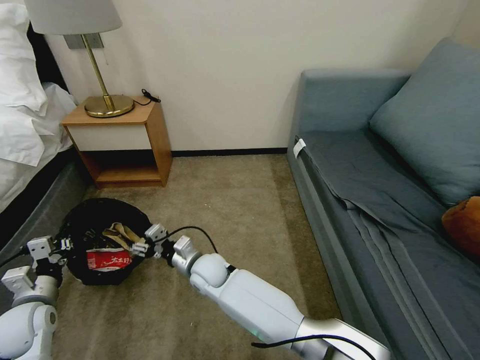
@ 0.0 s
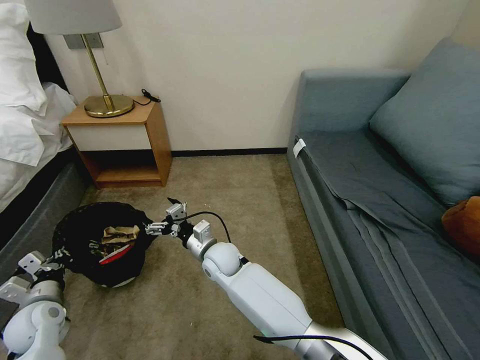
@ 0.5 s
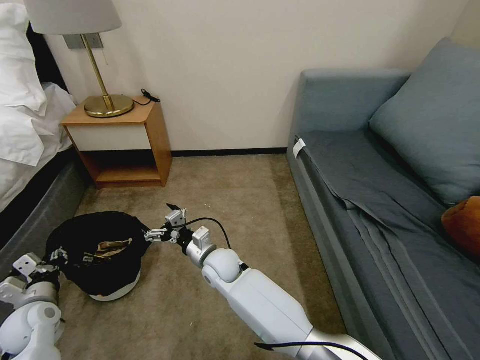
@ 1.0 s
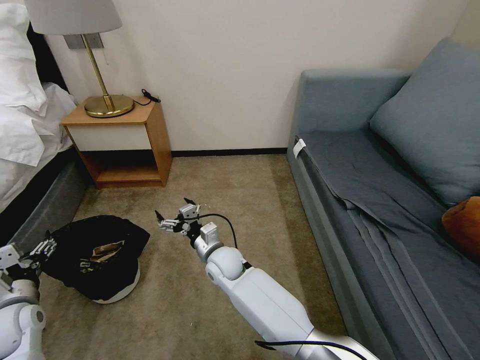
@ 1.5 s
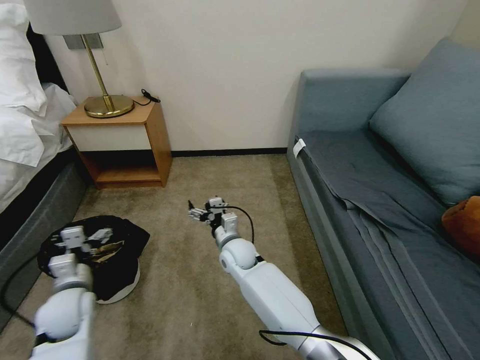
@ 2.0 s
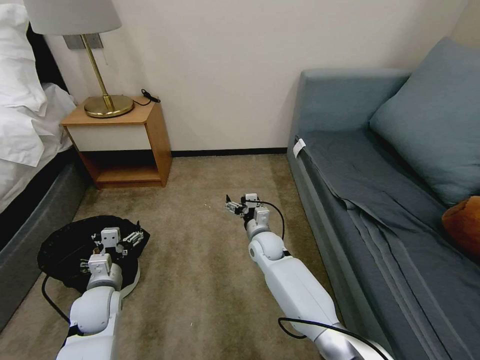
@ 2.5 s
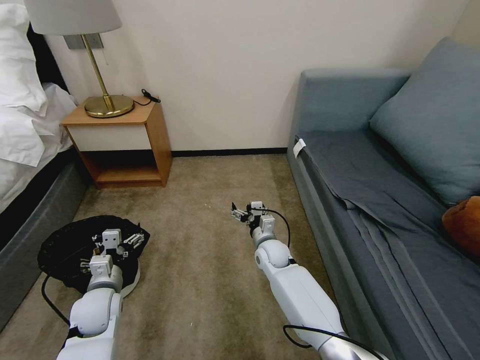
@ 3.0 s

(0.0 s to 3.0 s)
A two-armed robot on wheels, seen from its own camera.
Task of the whole recording: Pick up the trash bin, then pick up the garbage on the floor and place it into the trash bin.
0.0 s - 1.5 s: The right gripper changes place by some 5 cm, and opens up, while the left gripper opens its fingers.
1.5 s - 3.0 s: The two grippers go roughly 15 cm to the right.

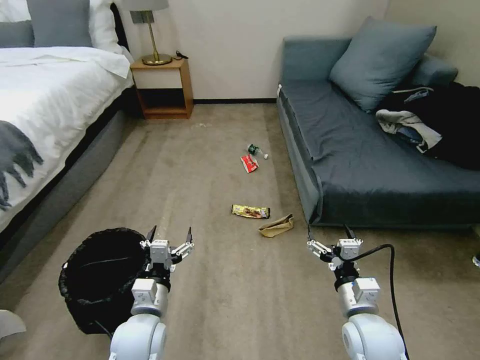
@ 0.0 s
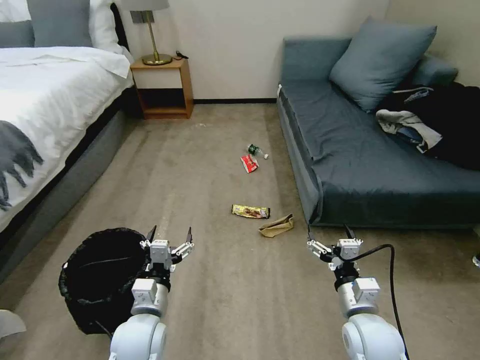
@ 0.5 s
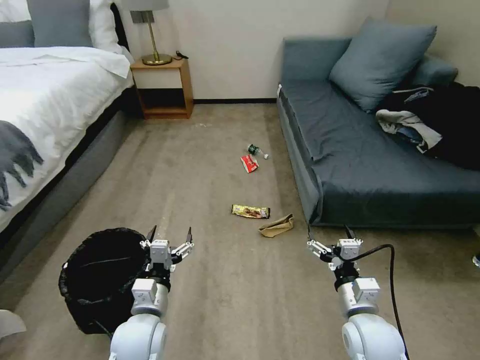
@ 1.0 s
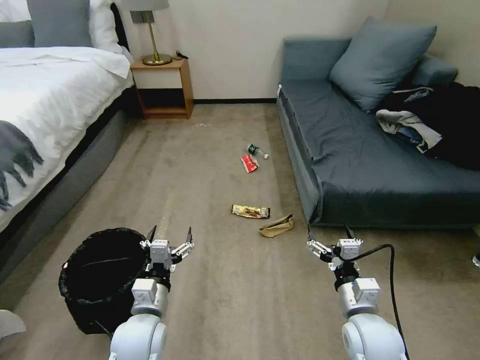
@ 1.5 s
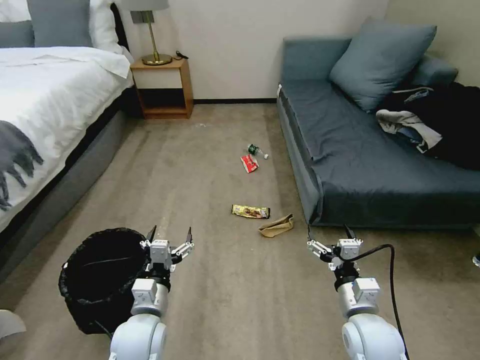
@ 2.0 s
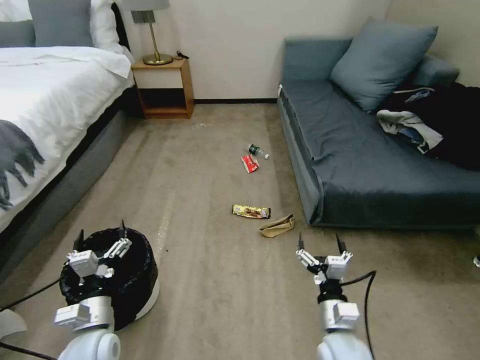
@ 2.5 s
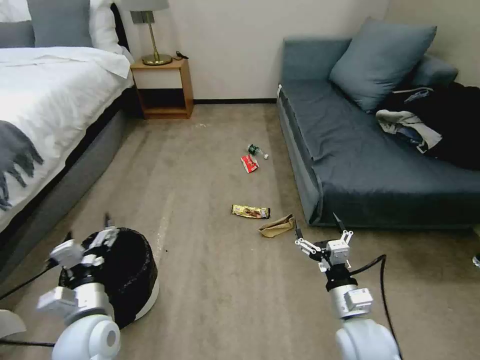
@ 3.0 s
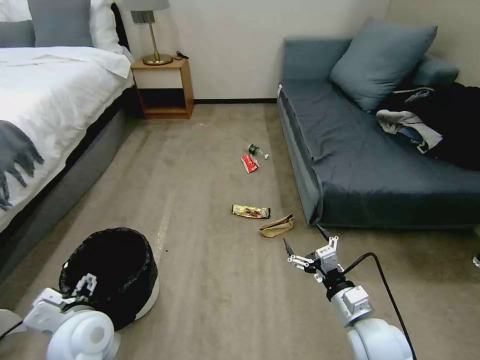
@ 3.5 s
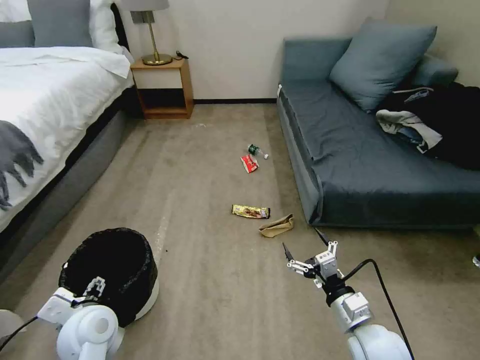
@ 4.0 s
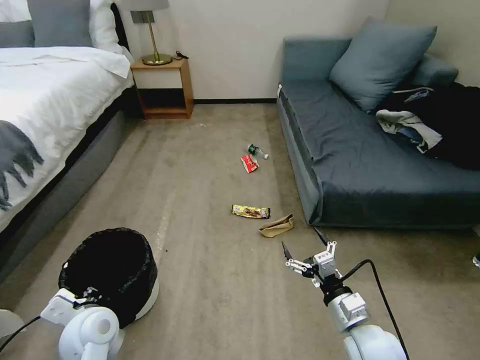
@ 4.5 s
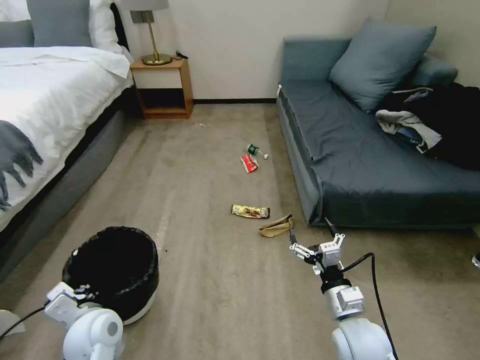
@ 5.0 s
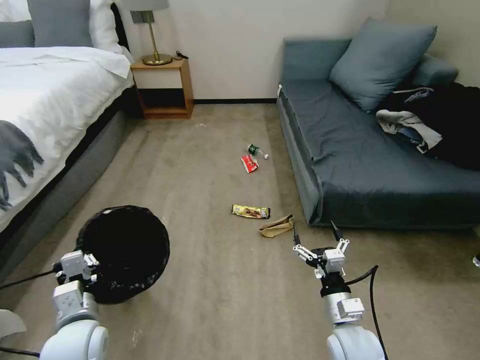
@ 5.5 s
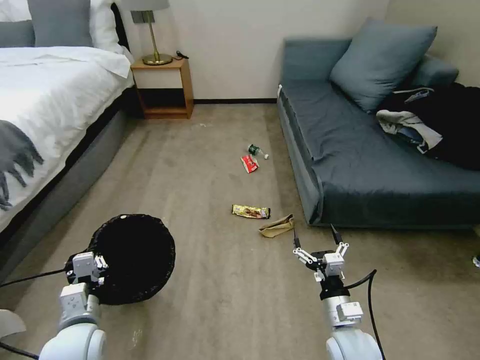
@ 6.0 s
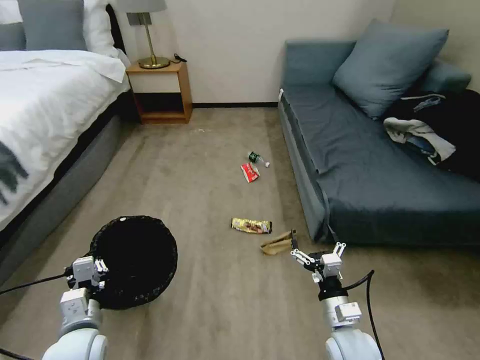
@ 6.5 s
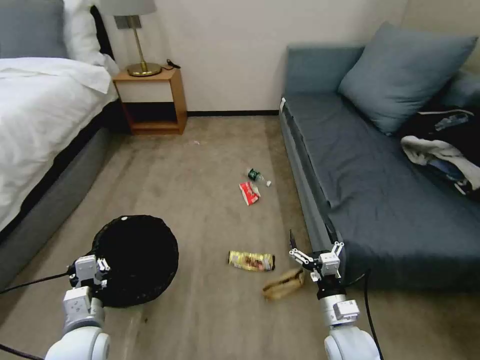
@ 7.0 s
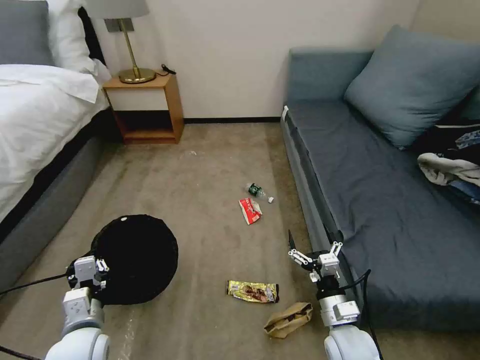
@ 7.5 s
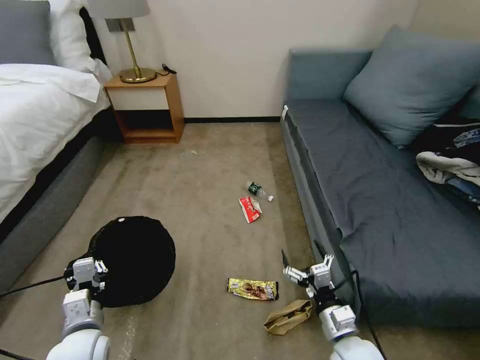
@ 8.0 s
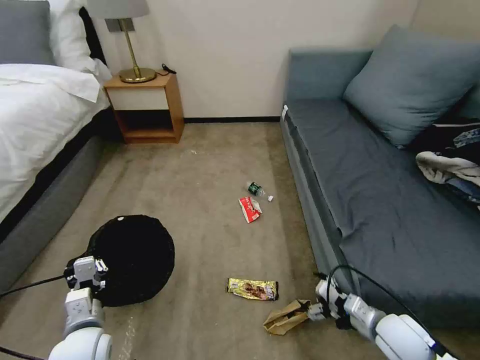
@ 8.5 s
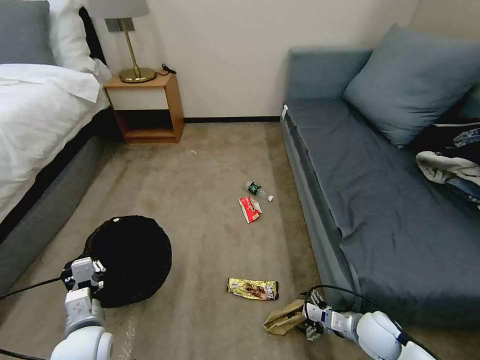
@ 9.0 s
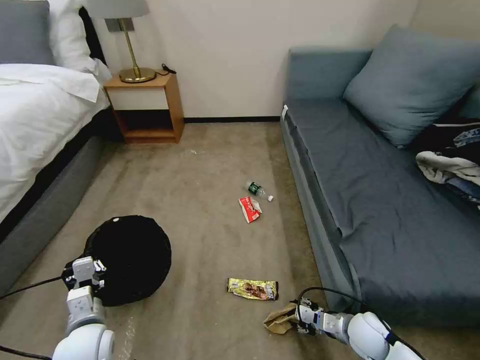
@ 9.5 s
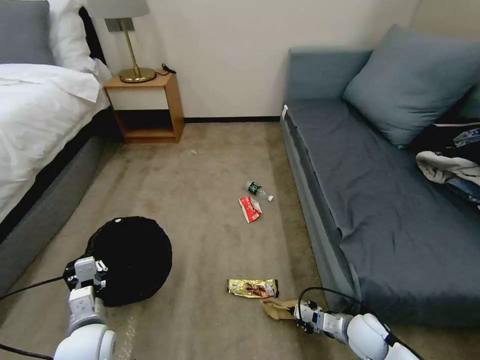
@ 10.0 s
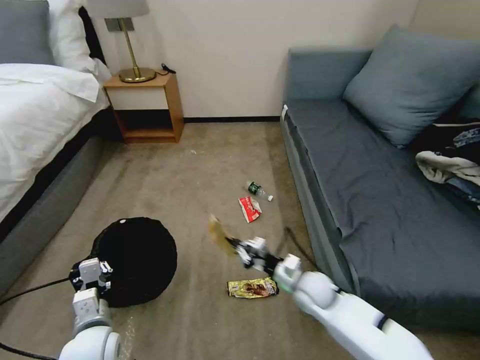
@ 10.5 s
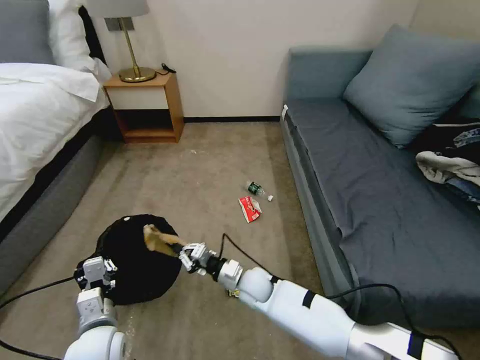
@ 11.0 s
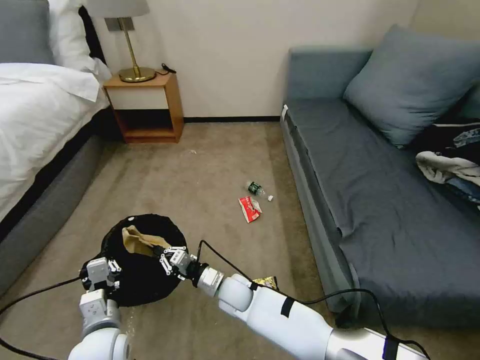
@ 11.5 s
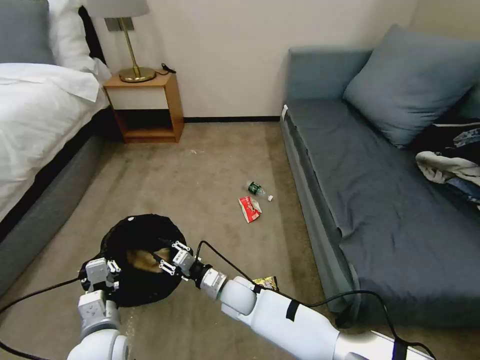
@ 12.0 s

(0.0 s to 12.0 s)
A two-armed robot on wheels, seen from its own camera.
Task of the whole recording: Pick up the trash bin, then pick up the garbage on the floor and place it into the trash bin.
2.0 s - 4.0 s: The left gripper heads to the left, covering approximately 10 cm.
4.0 s - 6.0 s: The left gripper closes its fingers; the right gripper shifts by about 5 cm.
8.0 s - 10.0 s: The right gripper heads downward, to the right and forward, covering about 15 cm, and closes.
10.0 s - 12.0 s: The right gripper shifts about 35 cm to the left, and opens its fingers.

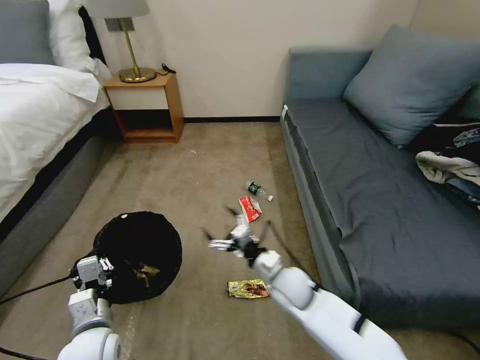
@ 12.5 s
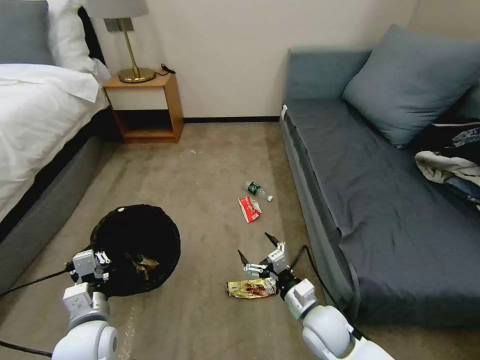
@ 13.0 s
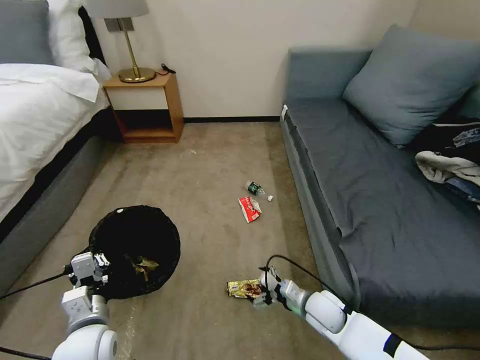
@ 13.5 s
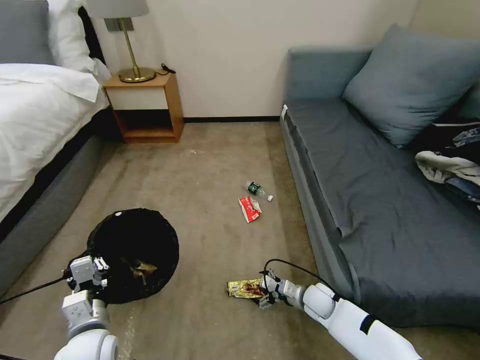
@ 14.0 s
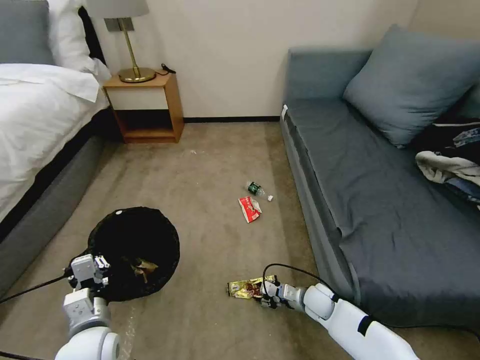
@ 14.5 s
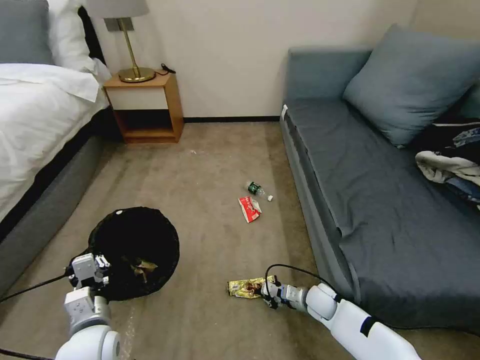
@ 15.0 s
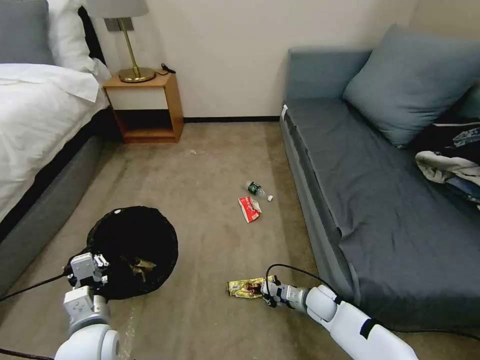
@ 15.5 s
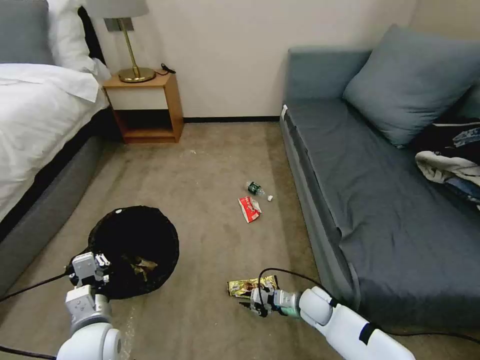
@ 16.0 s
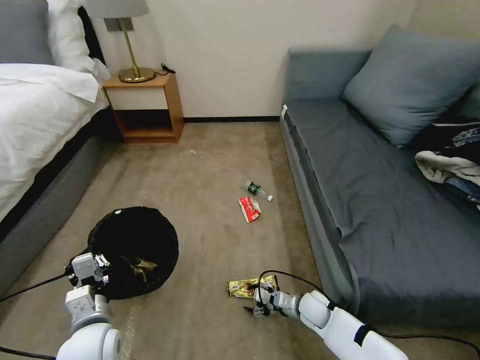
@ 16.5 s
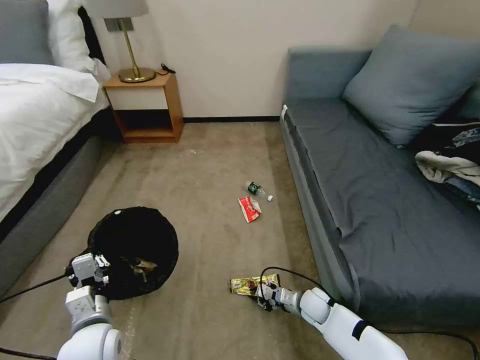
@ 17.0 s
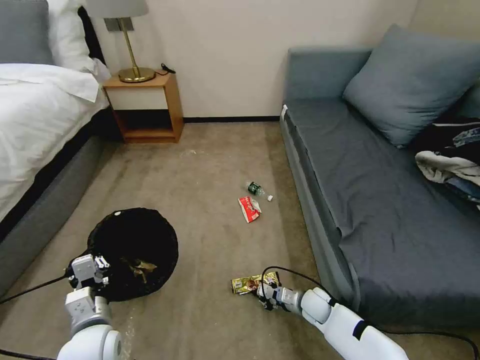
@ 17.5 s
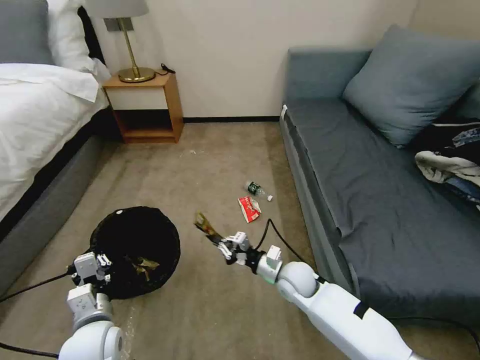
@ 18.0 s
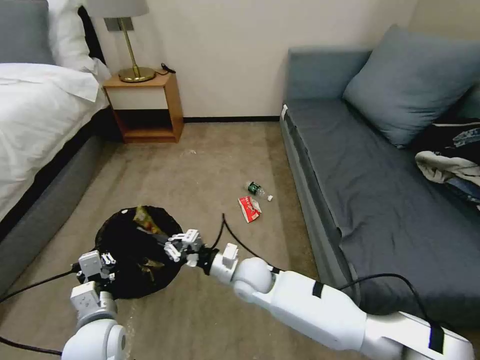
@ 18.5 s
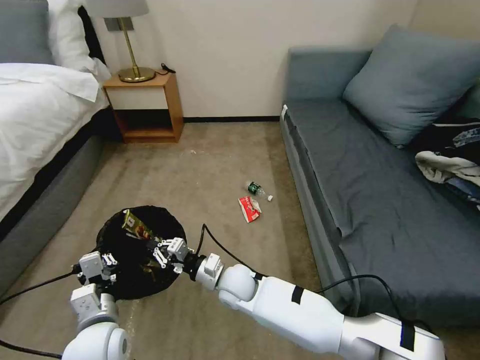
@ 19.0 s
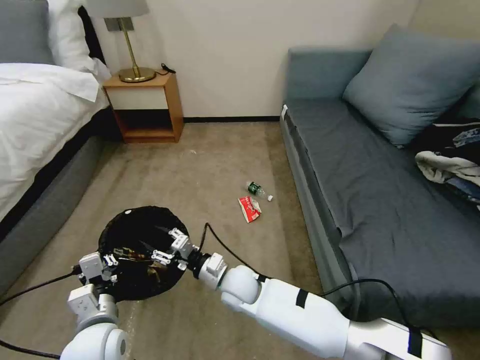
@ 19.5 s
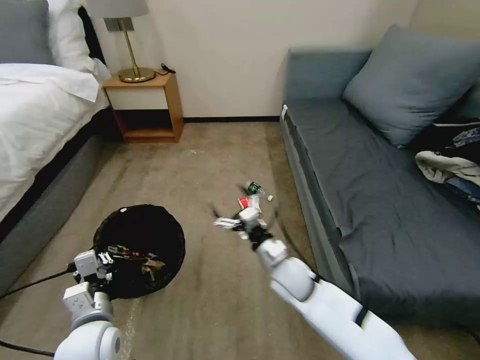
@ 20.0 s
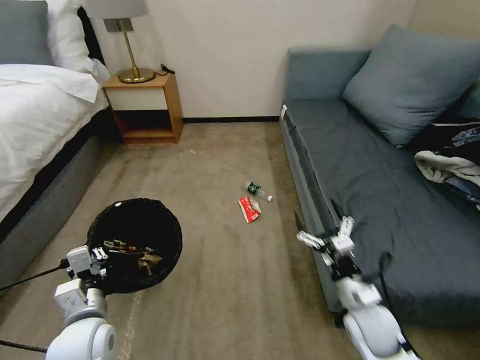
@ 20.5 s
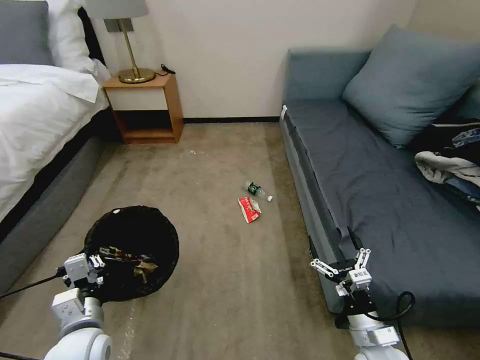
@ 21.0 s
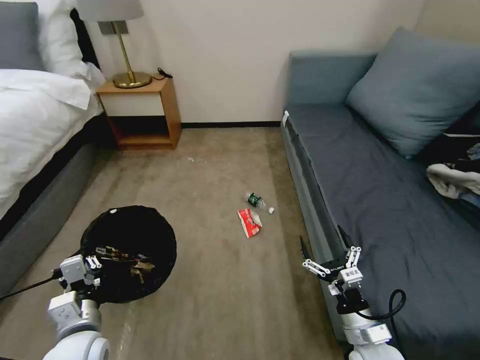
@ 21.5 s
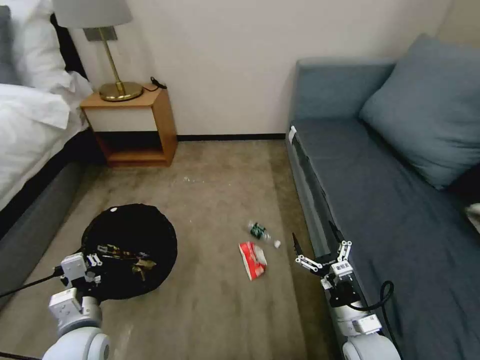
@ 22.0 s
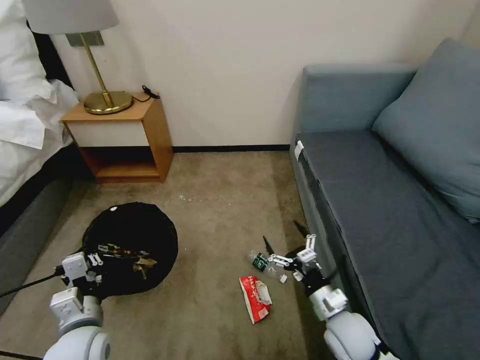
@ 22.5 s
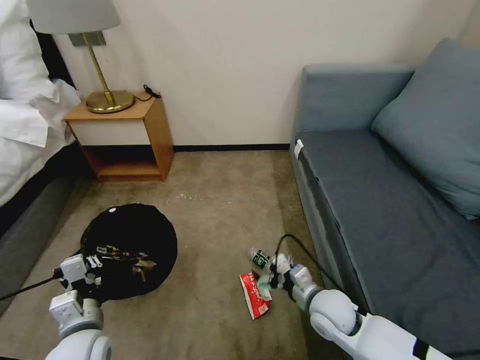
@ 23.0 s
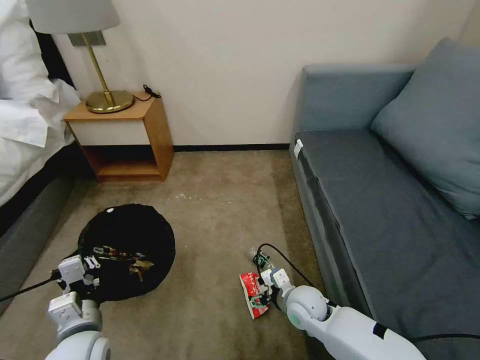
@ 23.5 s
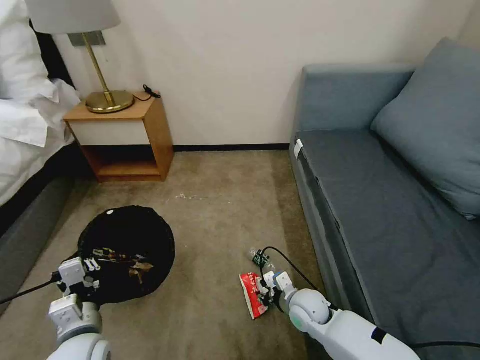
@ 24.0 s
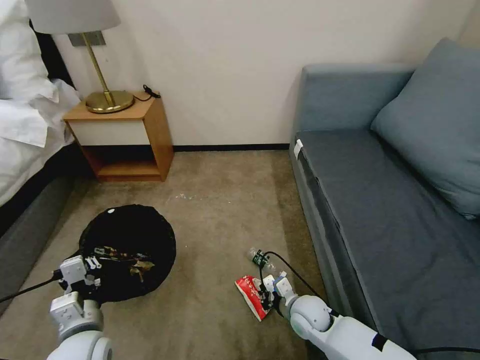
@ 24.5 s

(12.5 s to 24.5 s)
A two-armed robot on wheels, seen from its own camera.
Task of the whole recording: Pick up the trash bin, then pick up the garbage on the floor and place it into the trash bin.
12.5 s - 14.5 s: The right gripper moves downward and to the right, roughly 20 cm, and closes.
14.5 s - 16.5 s: The right gripper closes, then reopens.
16.5 s - 18.5 s: The right gripper shifts some 25 cm to the left and upward, and closes.
18.5 s - 20.5 s: The right gripper shifts some 25 cm to the right and backward, and opens its fingers.
20.5 s - 22.5 s: The right gripper heads to the left, covering about 5 cm.
22.5 s - 24.5 s: The right gripper shifts about 10 cm downward, to the left and forward, and closes its fingers.
